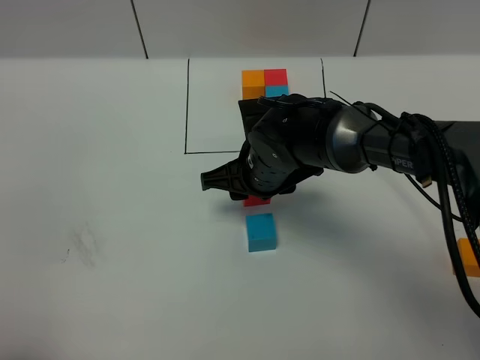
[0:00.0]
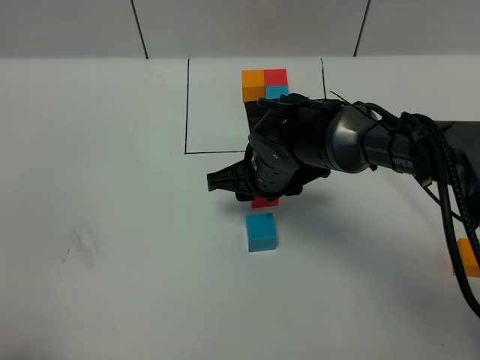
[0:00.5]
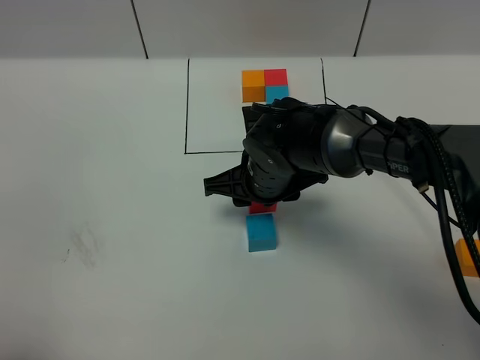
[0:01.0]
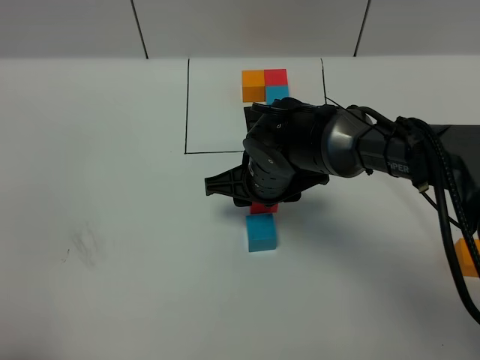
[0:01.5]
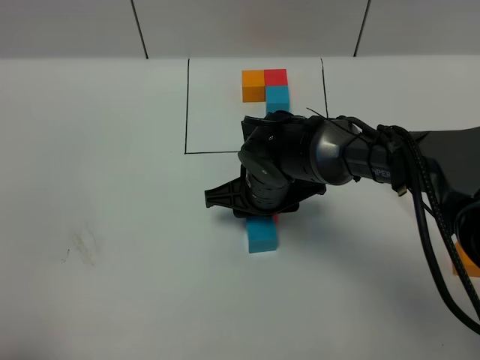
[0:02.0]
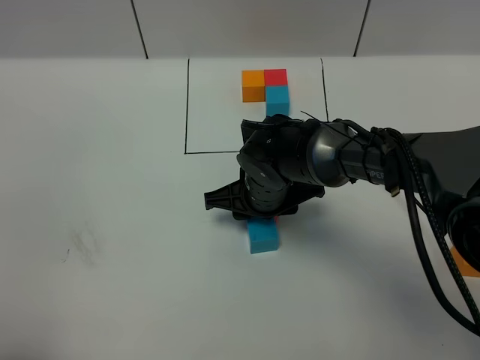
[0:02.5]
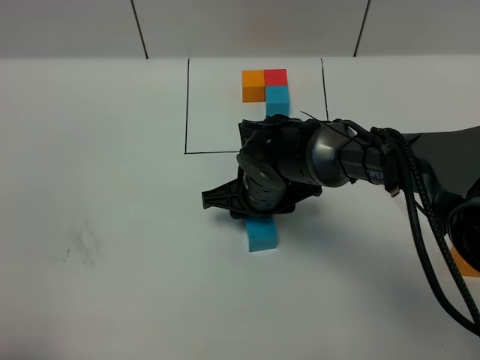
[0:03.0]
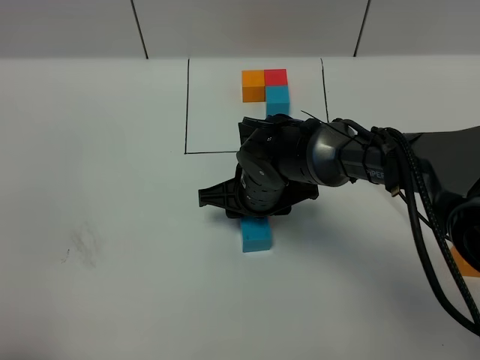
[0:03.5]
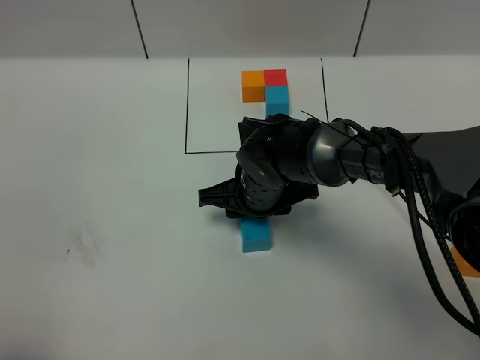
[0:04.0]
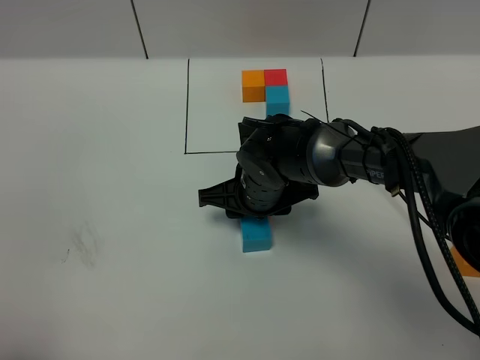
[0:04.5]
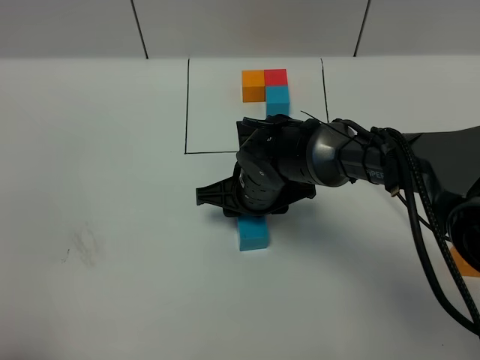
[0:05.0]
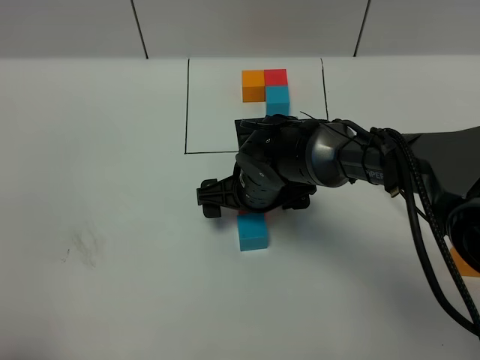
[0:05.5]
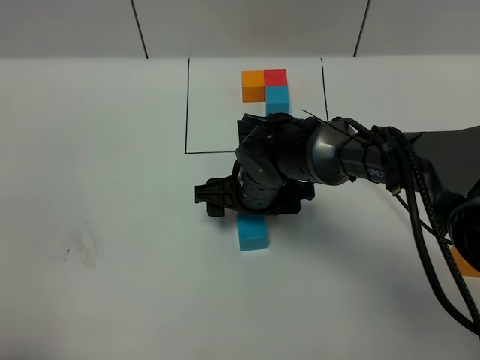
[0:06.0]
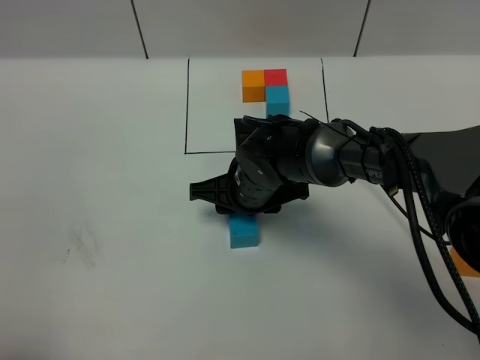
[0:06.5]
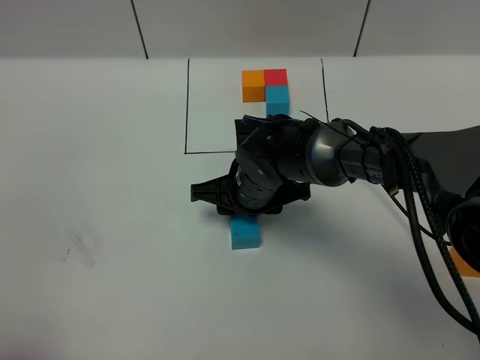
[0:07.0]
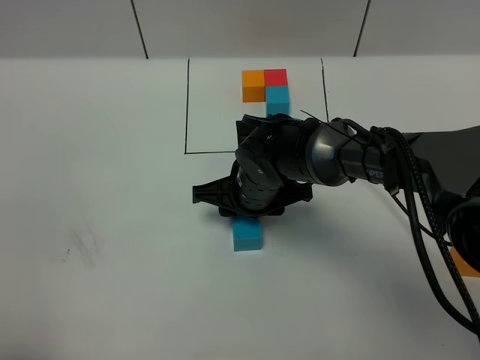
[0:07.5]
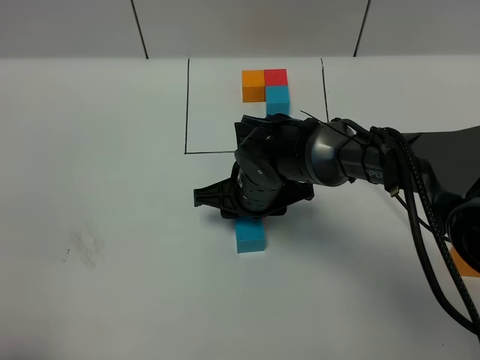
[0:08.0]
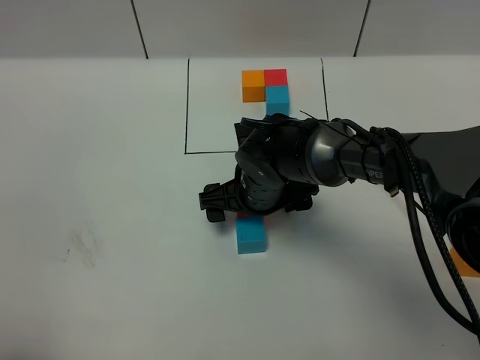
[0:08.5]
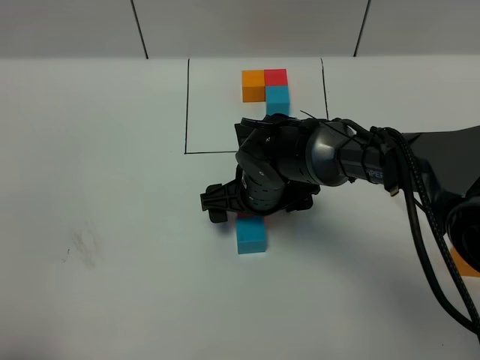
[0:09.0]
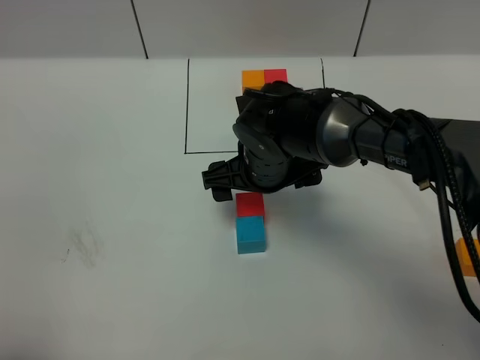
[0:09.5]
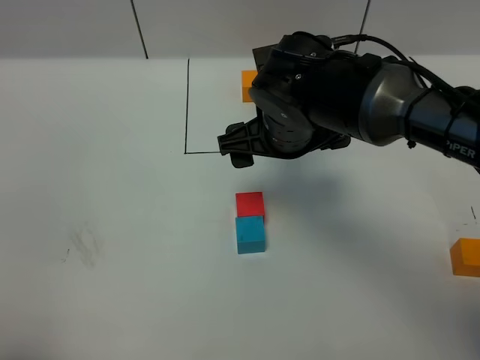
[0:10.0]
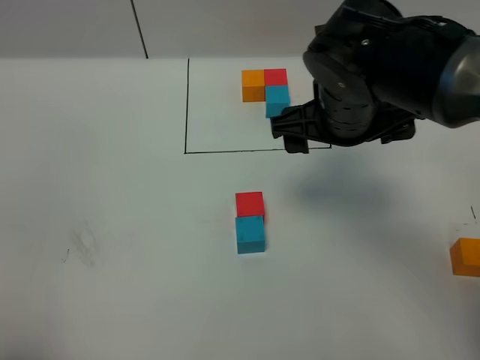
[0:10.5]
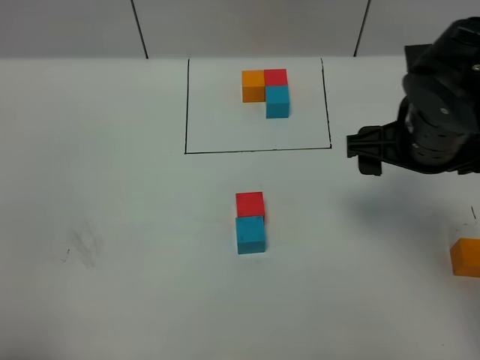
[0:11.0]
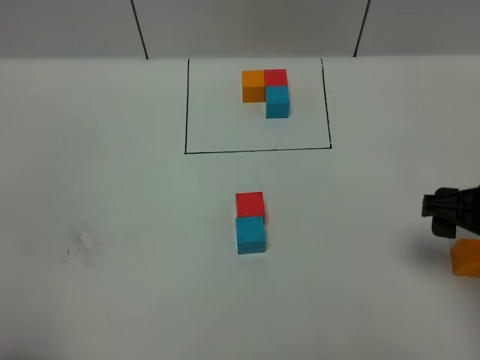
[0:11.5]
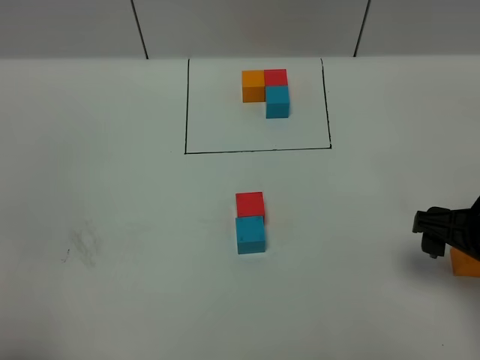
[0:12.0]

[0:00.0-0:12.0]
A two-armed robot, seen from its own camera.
Task of the whole recording: According to the building block template in front, assemble the scattered blocks together.
Step, 0.0 to 9.0 s: Put the red cube on the behind of the blue cube.
0.0 to 2.0 s: There are only small adjustments of the grippers.
2.0 to 4.0 s: Both grippers stay put.
4.0 to 6.0 s: Both grippers stay put.
6.0 to 8.0 s: Both grippers stay about where they are.
8.0 to 10.0 s: The right gripper moves upward, about 10 cm, and opens up.
10.0 to 12.0 s: The right gripper heads to the right and backward, covering roughly 25 cm.

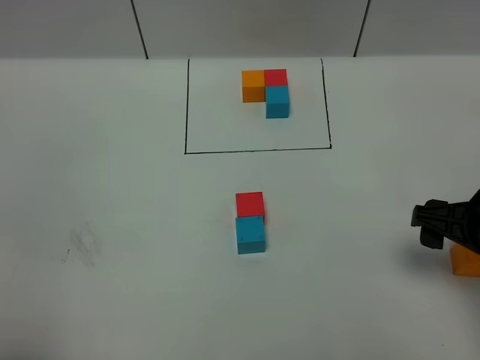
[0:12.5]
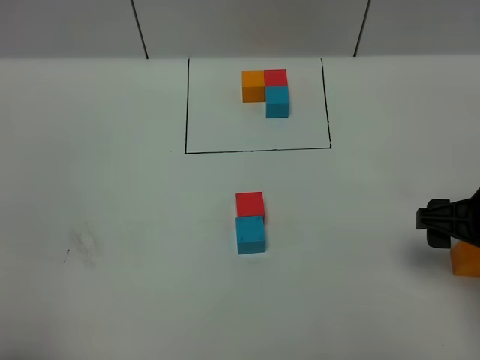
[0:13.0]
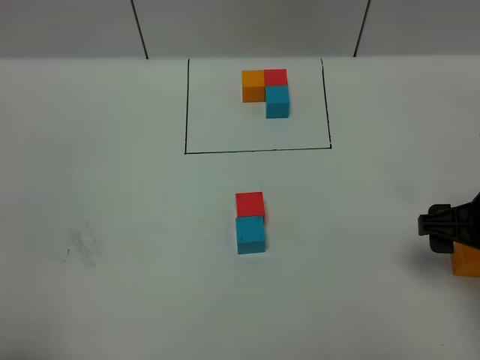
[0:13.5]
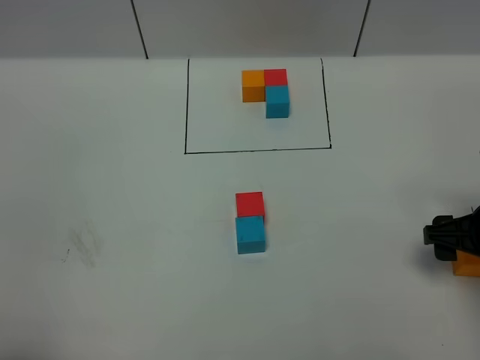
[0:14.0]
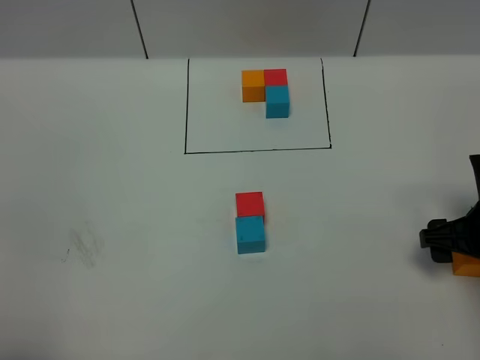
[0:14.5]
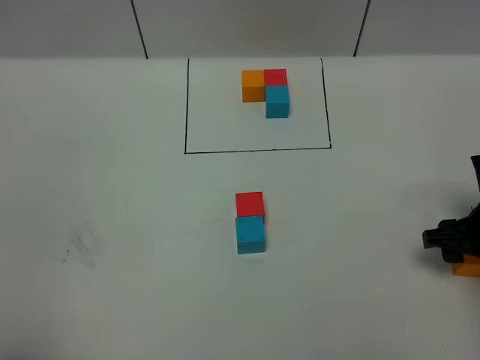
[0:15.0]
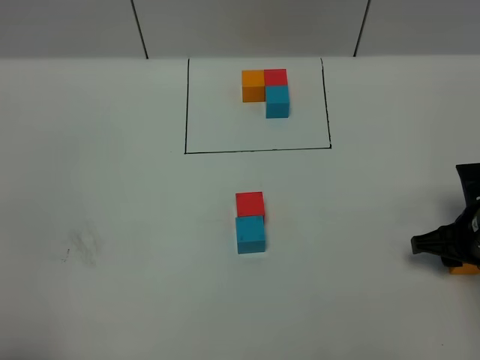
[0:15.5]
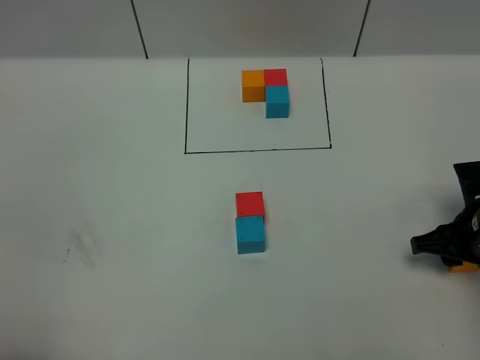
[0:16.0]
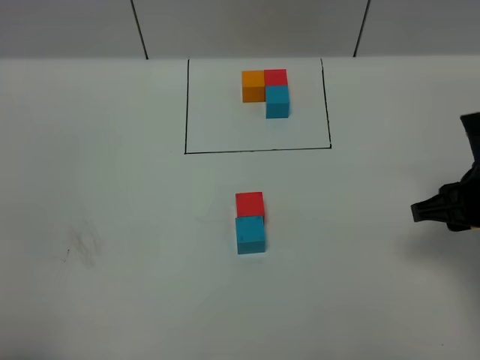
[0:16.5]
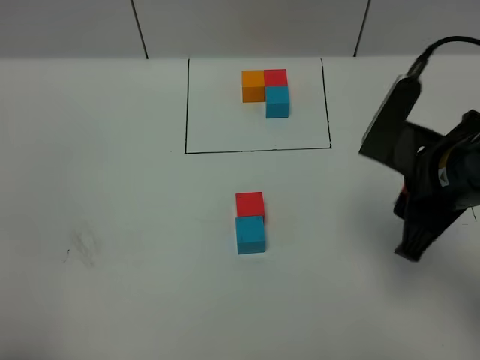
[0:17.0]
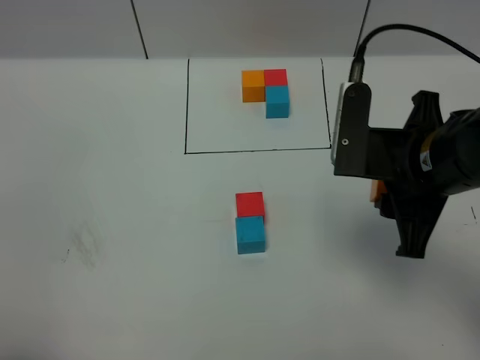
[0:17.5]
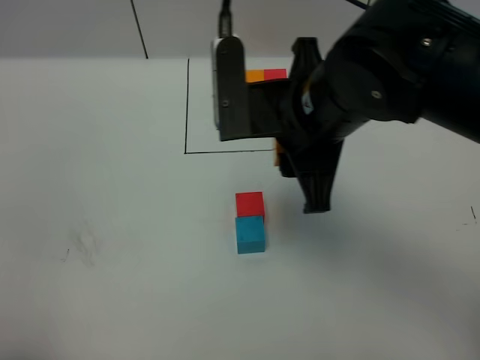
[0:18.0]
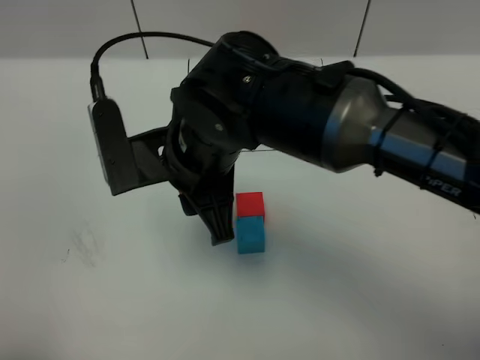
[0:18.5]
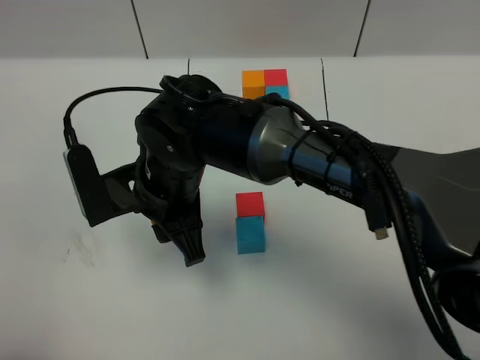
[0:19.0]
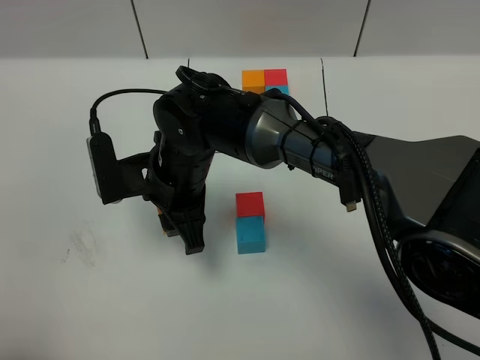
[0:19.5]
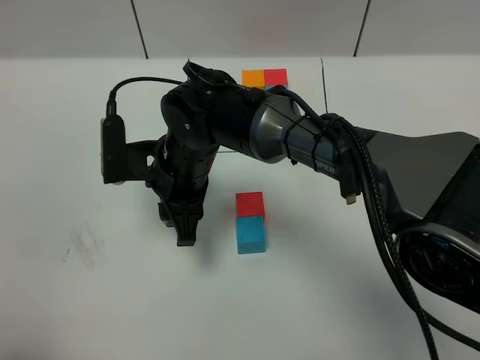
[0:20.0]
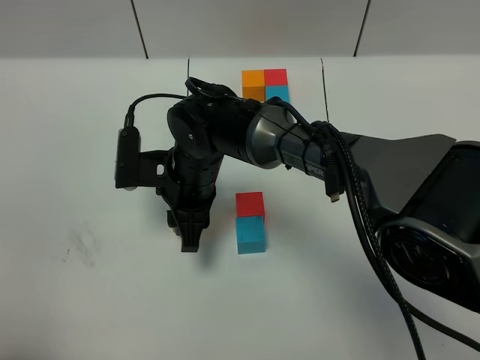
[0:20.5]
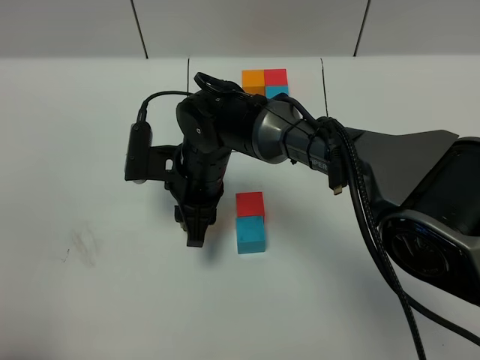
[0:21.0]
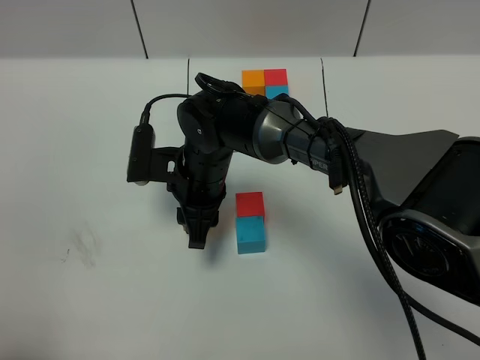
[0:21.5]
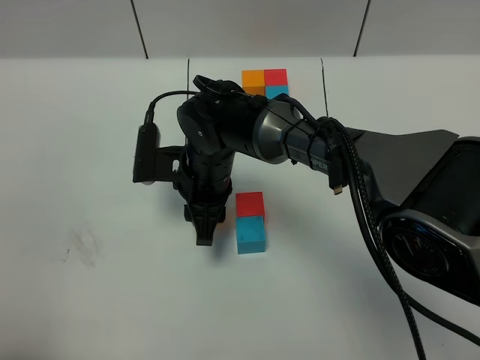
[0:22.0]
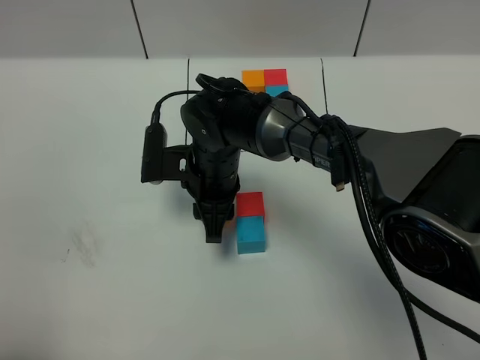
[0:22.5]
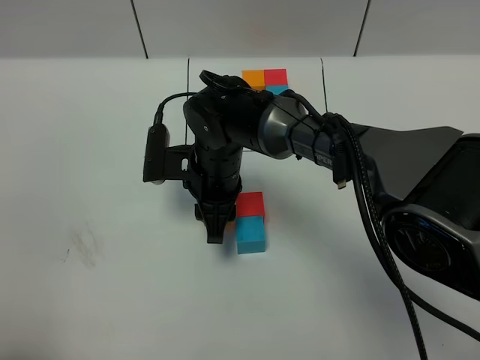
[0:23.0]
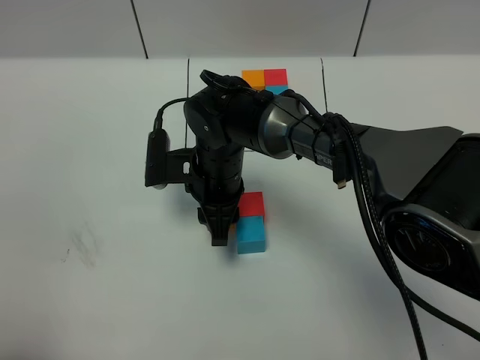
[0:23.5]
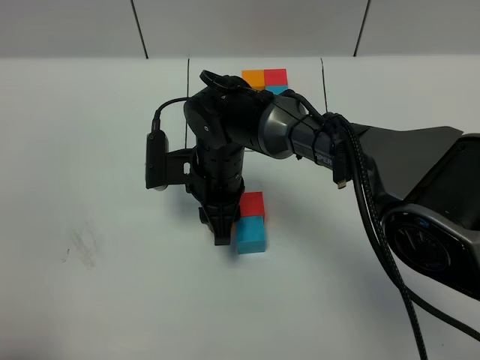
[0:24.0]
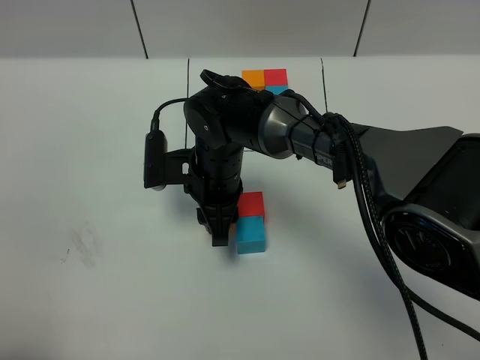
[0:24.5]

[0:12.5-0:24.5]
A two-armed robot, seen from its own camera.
Task of the whole recording: According to the building block template in front, assemble the scattered blocks together.
12.5 to 14.5 s: The right gripper moves downward, roughly 5 cm.
14.5 to 16.5 s: The right gripper is displaced upward by roughly 5 cm, and closes its fingers.
16.5 to 18.5 s: The right gripper goes approximately 30 cm to the left.
18.5 to 20.5 s: The right gripper travels downward and forward by approximately 15 cm.
20.5 to 22.5 s: The grippers move only a little.
22.5 to 24.5 s: The two grippers keep their place.

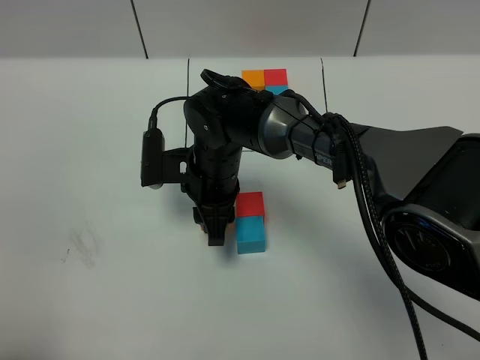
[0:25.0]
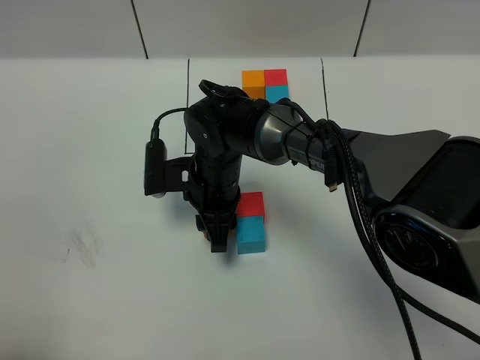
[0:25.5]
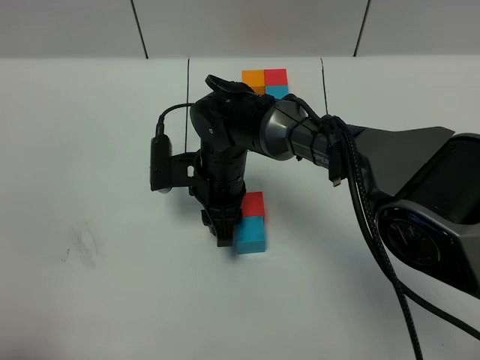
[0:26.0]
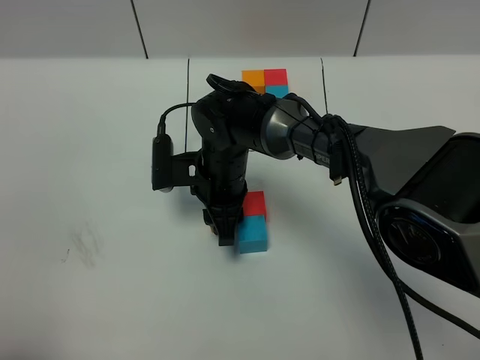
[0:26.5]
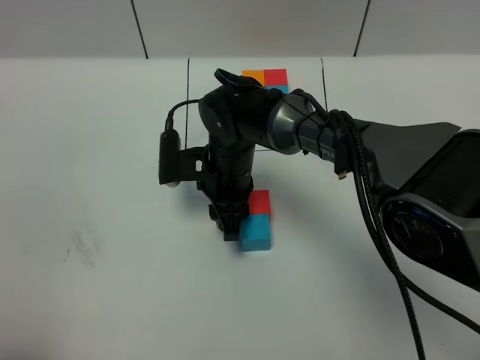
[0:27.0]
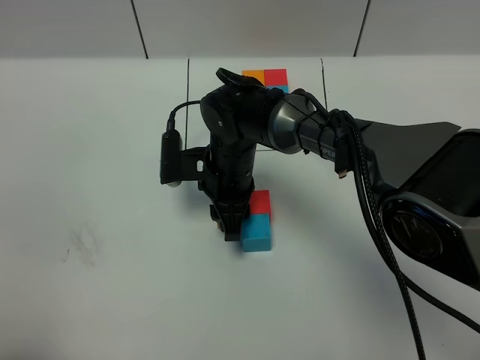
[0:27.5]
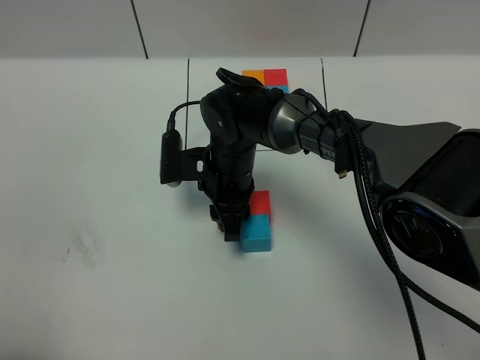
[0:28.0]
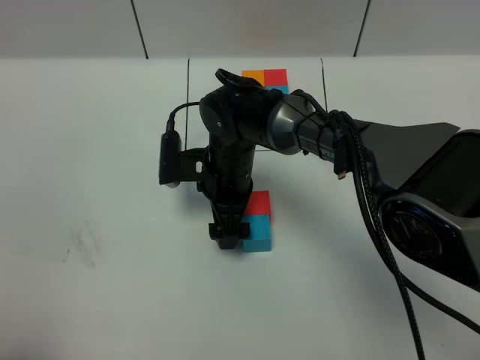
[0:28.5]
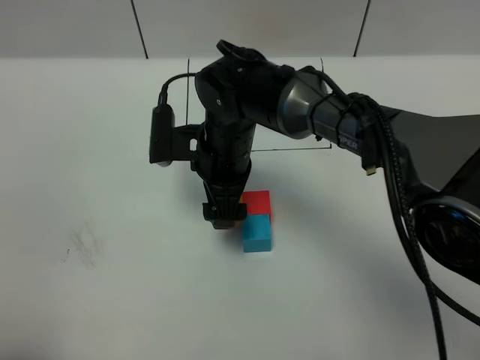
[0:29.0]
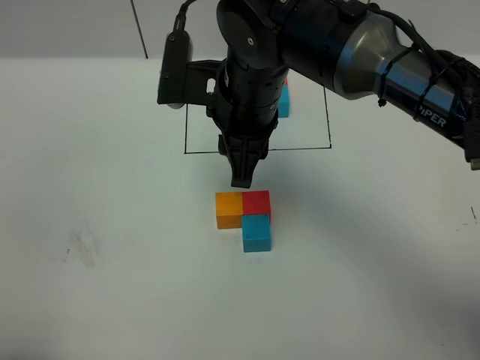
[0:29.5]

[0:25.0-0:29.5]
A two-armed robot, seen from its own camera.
Task of the whole recording: According to the building block template in front, assemble the scattered blocks together.
25.0 to 27.0 s: The grippers move only a little.
27.0 to 29.5 s: The right gripper goes about 15 cm upward, and opens and closes again.
